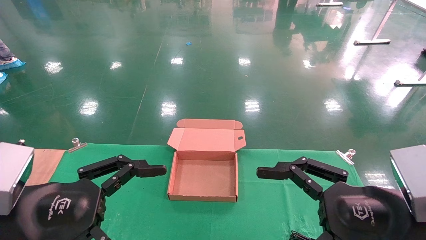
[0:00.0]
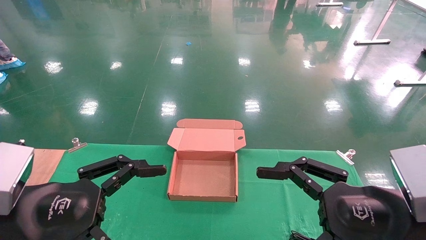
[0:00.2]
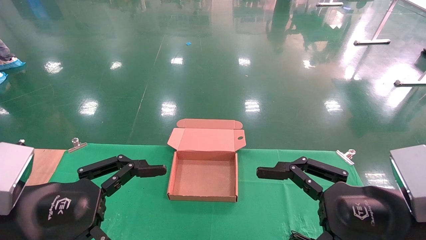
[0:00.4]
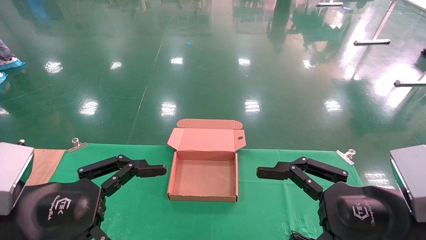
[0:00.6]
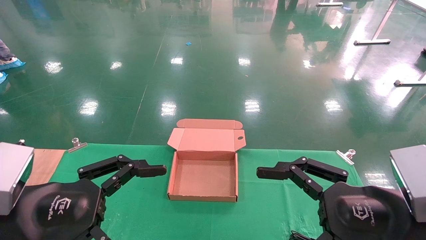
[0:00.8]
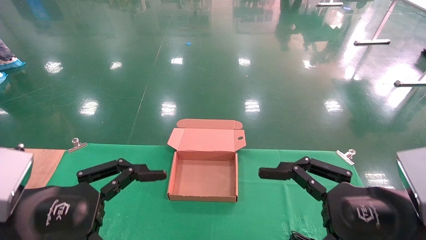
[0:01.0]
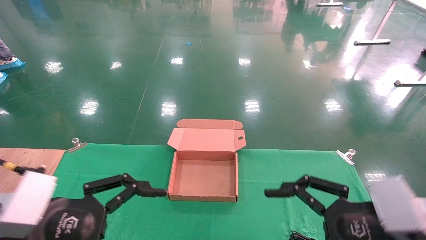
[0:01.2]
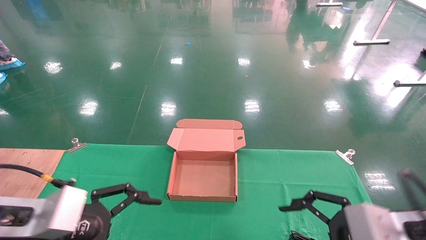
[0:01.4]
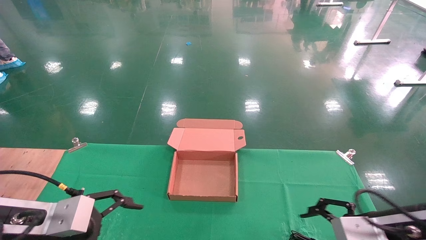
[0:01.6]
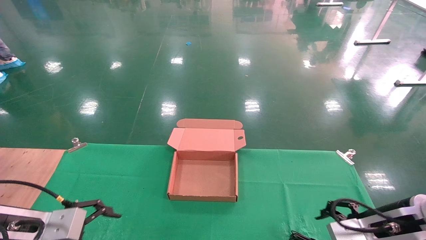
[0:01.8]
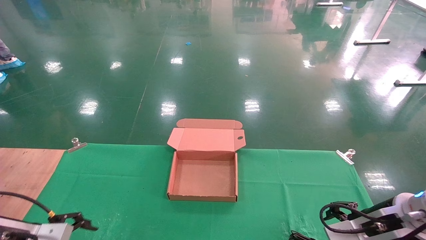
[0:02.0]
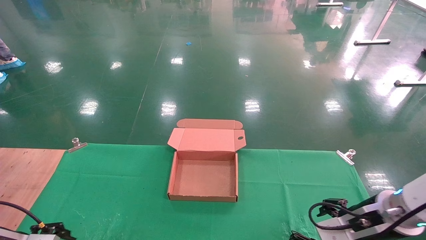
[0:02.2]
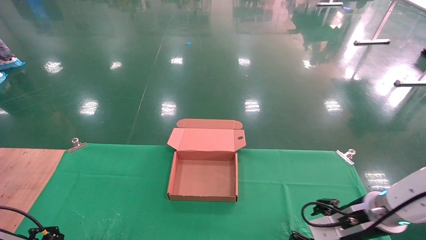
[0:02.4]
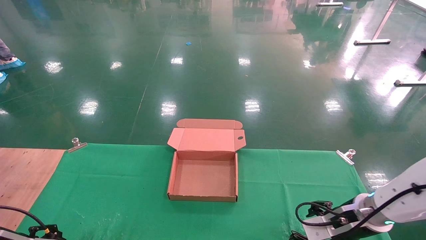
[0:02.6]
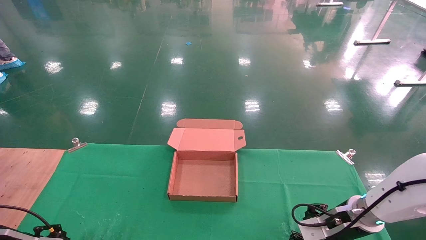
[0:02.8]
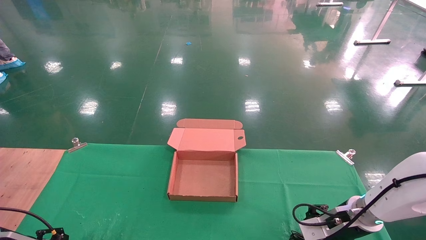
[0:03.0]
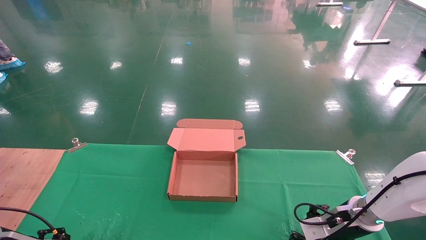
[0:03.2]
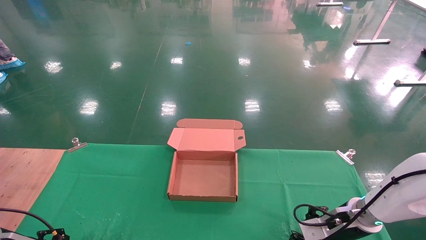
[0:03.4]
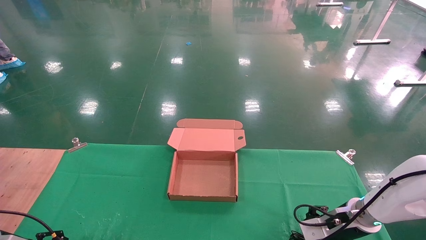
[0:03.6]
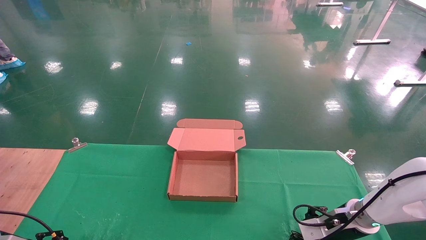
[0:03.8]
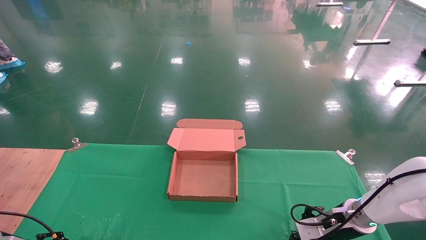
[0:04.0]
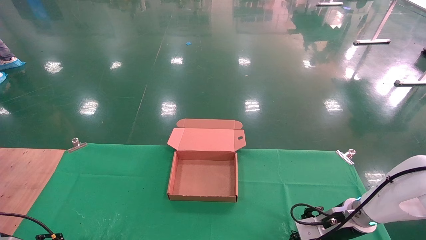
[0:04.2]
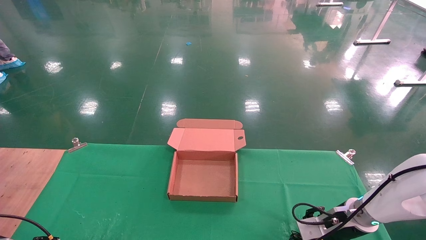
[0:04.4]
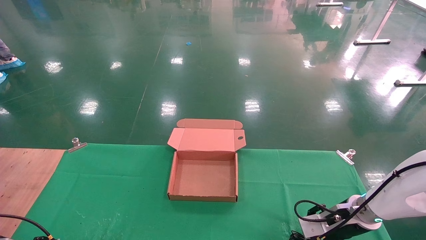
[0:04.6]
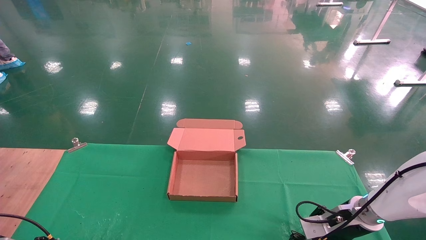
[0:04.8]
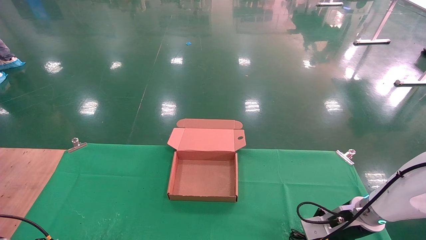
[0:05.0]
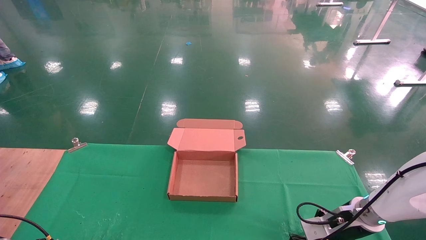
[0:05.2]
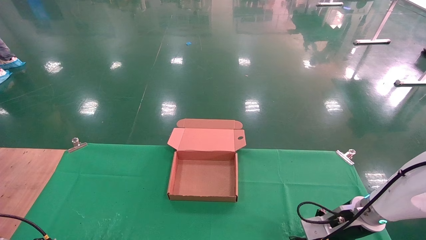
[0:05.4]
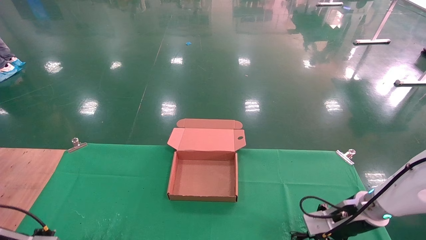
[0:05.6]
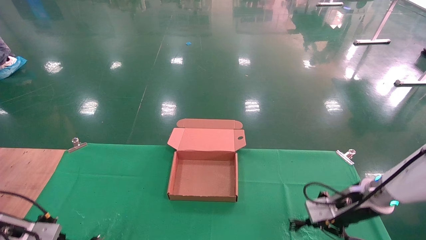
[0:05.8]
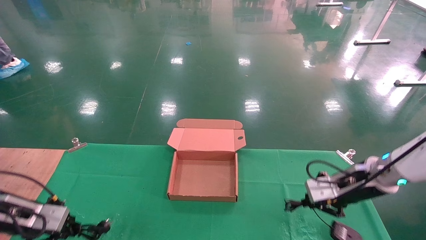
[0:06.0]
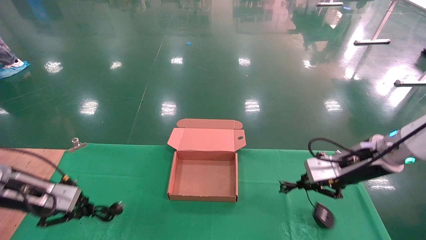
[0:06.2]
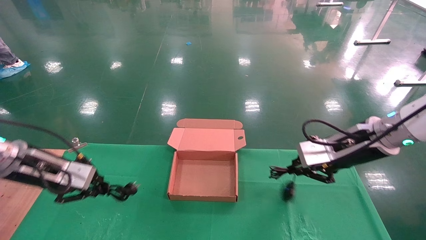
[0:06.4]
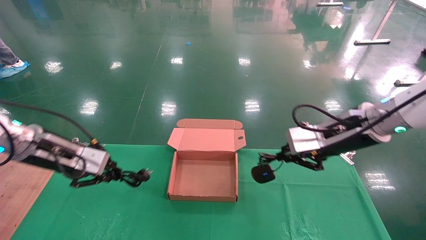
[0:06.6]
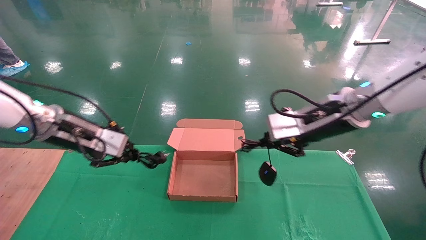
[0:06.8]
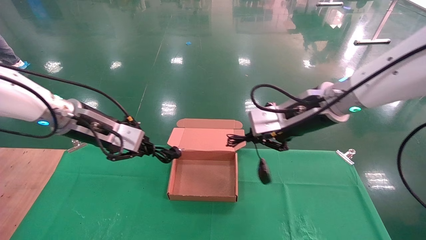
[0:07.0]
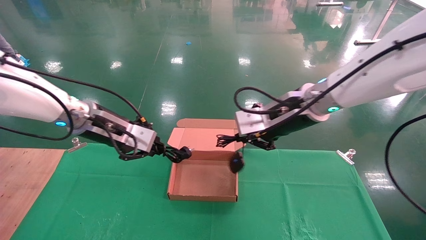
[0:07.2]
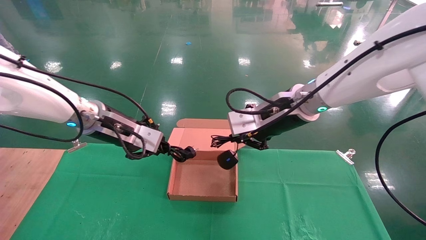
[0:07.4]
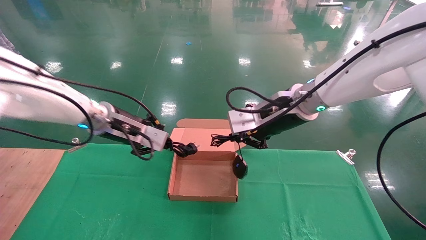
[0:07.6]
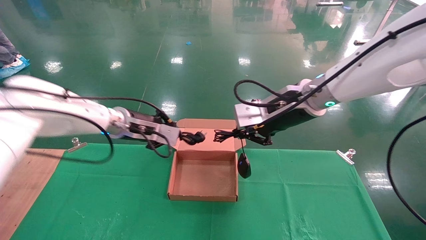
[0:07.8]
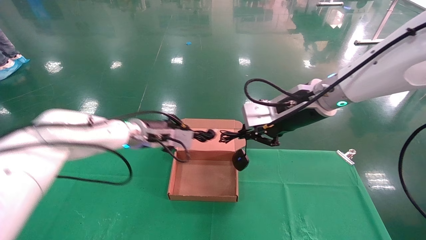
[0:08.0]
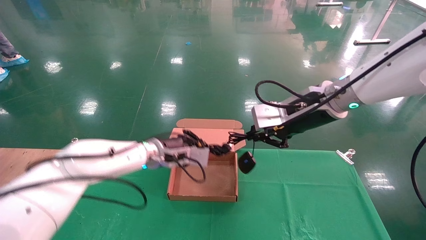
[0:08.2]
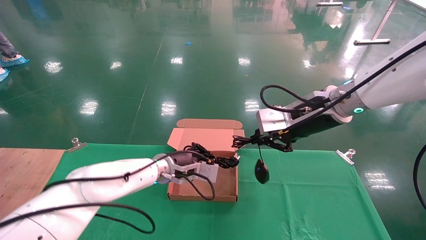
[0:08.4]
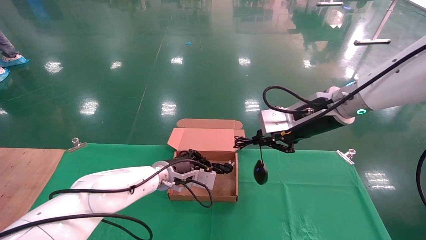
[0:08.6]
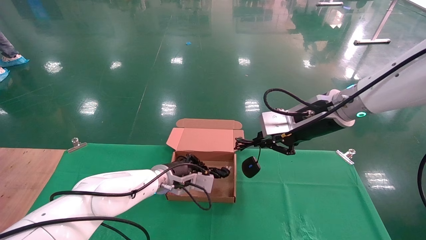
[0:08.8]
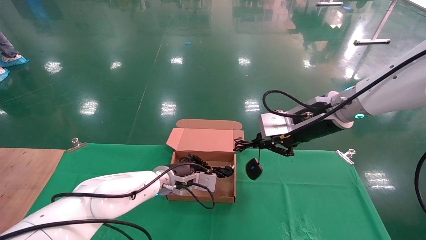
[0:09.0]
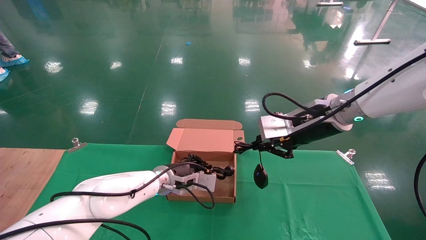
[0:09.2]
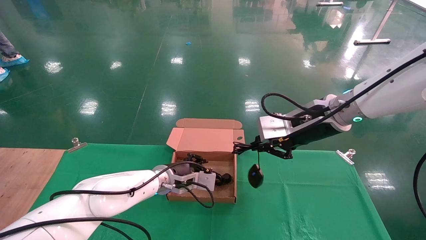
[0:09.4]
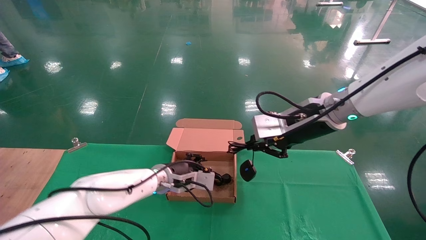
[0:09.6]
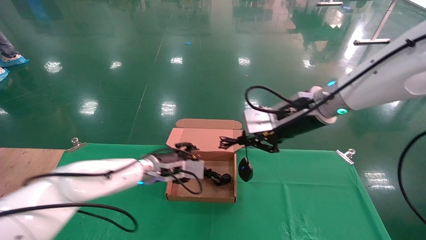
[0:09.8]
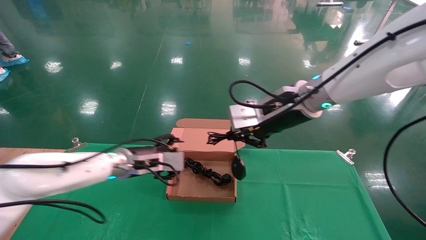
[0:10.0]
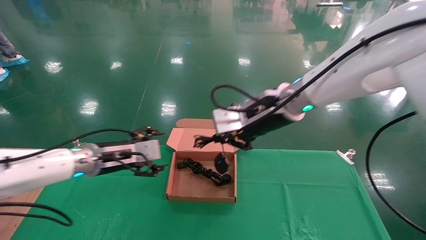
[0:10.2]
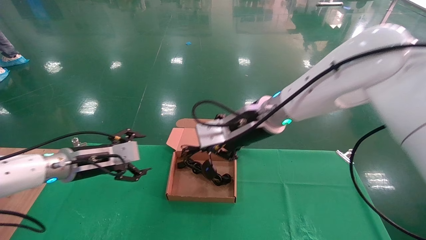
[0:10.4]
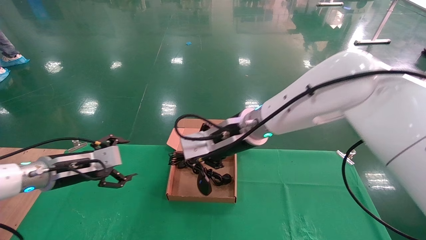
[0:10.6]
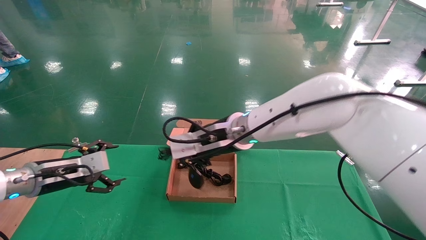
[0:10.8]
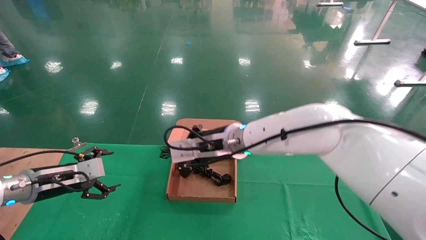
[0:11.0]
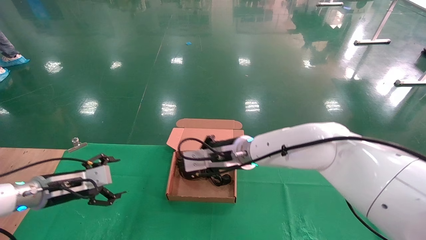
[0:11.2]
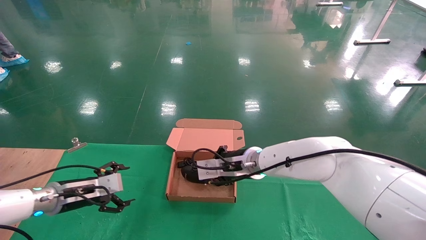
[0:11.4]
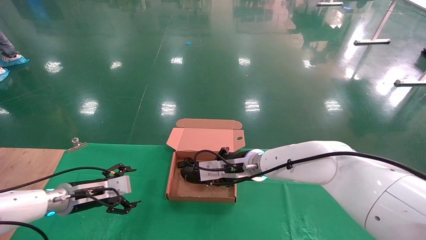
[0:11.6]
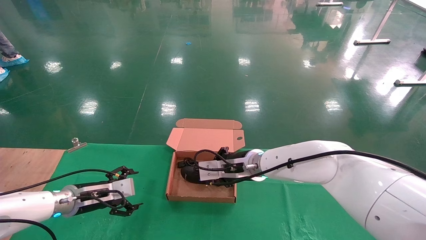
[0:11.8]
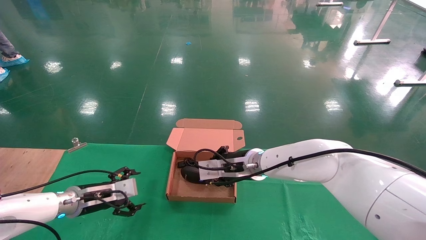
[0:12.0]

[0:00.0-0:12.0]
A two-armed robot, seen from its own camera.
Step, 0:01.8 to 0:06.2: Grab and lift both the mouse and power cord from the accessory packaging area at the same time.
Step, 0:06.4 to 0:12.0: Place the mouse and power cord into the box.
0:00.0 to 0:01.6: The grippers both shift forward and downward by approximately 10 cm.
0:01.6 to 0:03.0: The right gripper moves forward and downward, some 15 cm; the left gripper shifts some 20 cm to the left, downward and forward.
0:03.0 to 0:04.4: The grippers move only a little.
0:04.4 to 0:06.0: The grippers both shift upward by some 10 cm. The left gripper closes its fingers. Meanwhile the right gripper closes.
0:06.0 to 0:07.6: The right gripper shifts about 20 cm to the left and upward. Meanwhile the left gripper moves to the right, upward and forward, some 25 cm.
0:07.6 to 0:09.0: The right gripper goes some 5 cm to the right, while the left gripper goes some 20 cm downward and to the right.
0:09.0 to 0:10.4: Both grippers move to the left, about 15 cm. The left gripper opens.
0:10.4 to 0:12.0: The right gripper is displaced downward and forward by approximately 15 cm, while the left gripper goes about 10 cm downward.

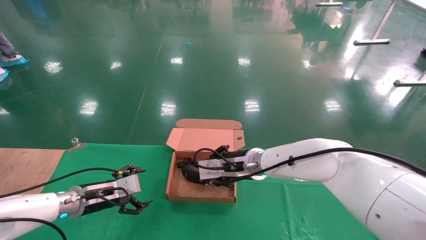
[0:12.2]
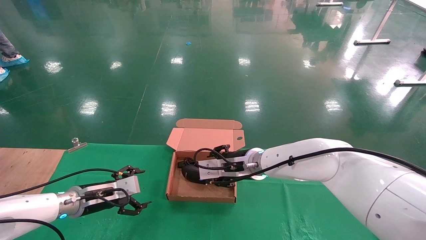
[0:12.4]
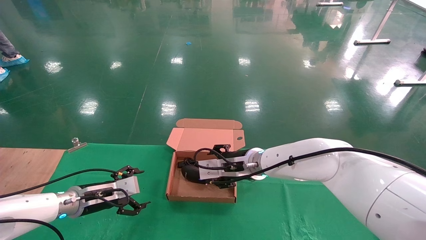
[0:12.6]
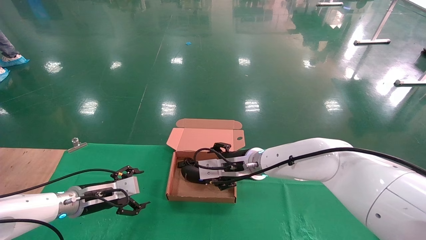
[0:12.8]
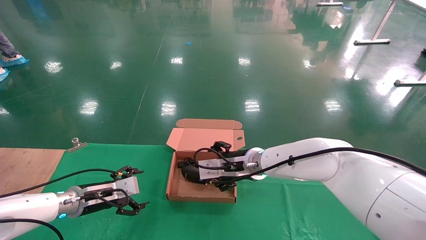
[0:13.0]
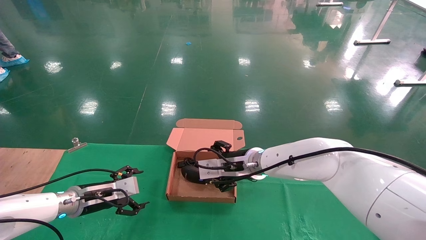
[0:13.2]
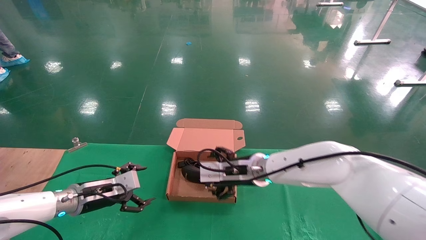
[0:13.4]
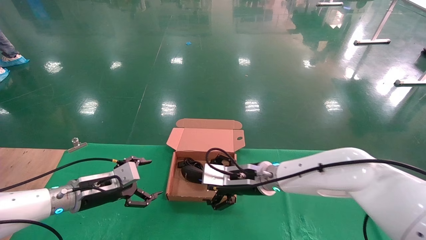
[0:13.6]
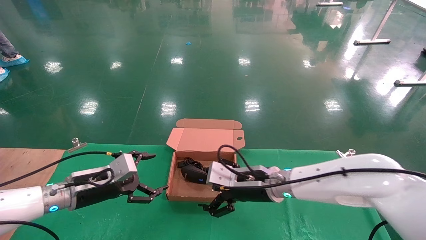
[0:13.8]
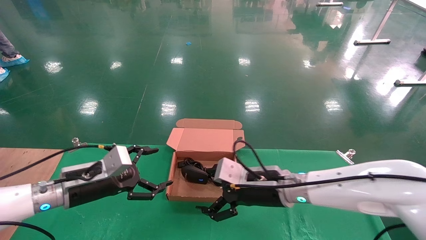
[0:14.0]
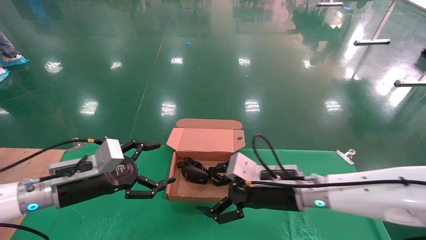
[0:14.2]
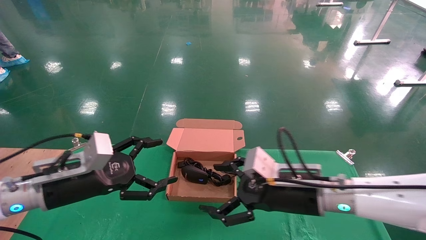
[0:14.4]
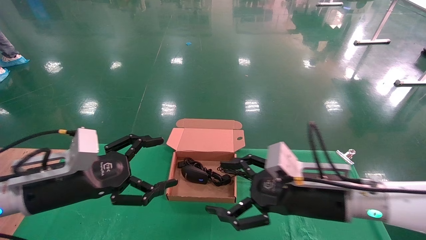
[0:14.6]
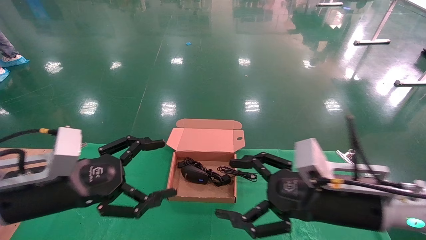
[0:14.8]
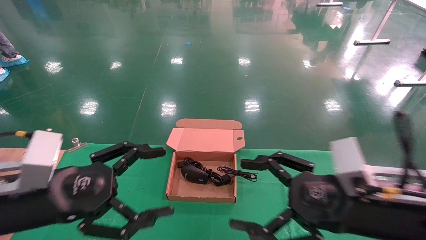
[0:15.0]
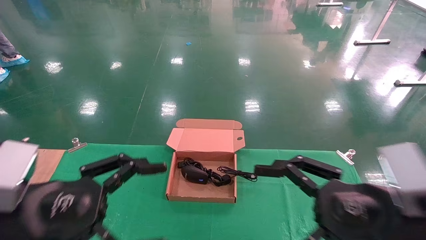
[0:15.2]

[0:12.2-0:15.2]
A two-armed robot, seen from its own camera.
0:12.2 to 0:13.8: The right gripper heads backward, covering roughly 5 cm, and opens, while the left gripper shifts about 5 cm upward.
0:13.8 to 0:15.2: The left gripper shifts approximately 20 cm backward and upward. The right gripper moves backward and to the right, roughly 25 cm.

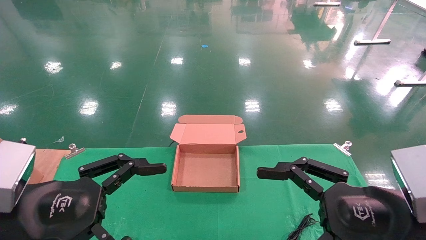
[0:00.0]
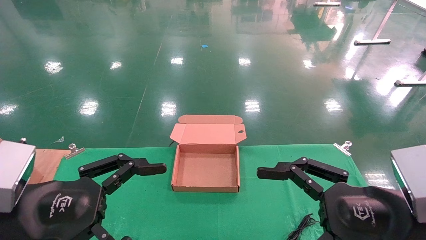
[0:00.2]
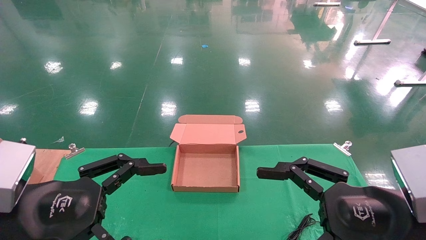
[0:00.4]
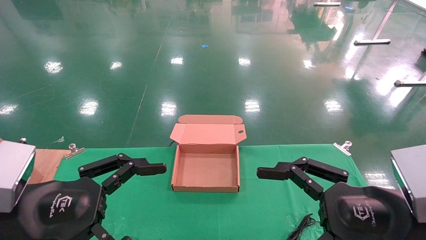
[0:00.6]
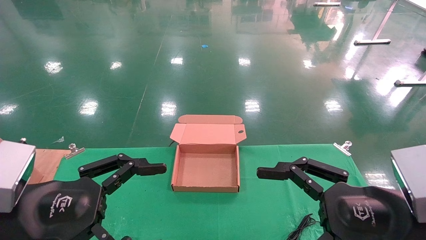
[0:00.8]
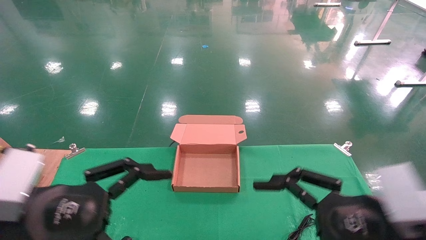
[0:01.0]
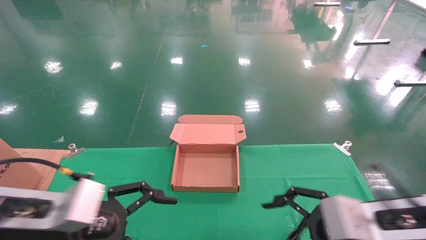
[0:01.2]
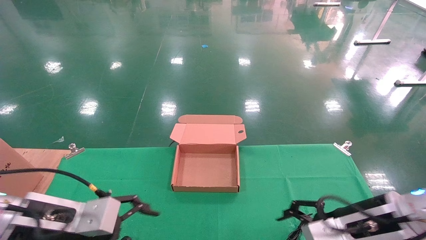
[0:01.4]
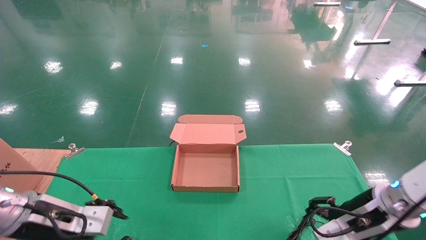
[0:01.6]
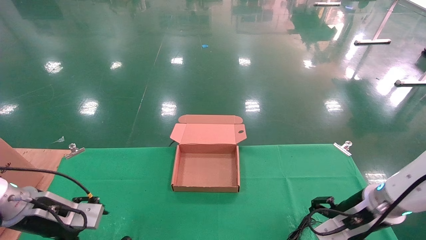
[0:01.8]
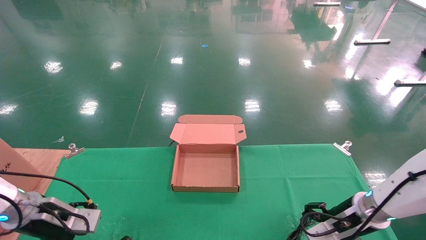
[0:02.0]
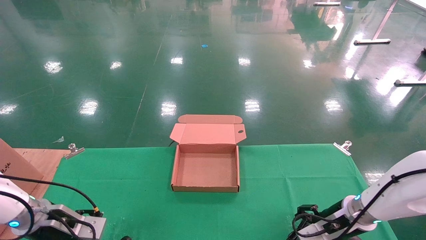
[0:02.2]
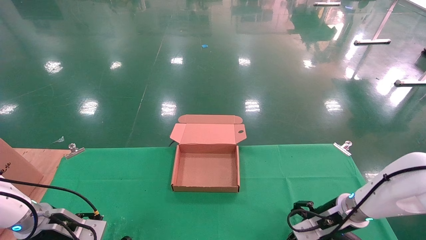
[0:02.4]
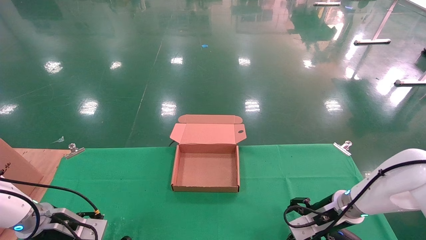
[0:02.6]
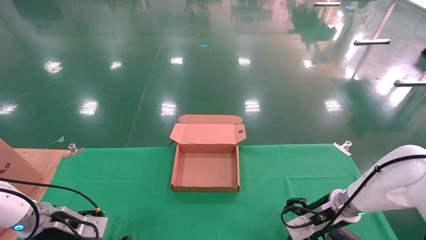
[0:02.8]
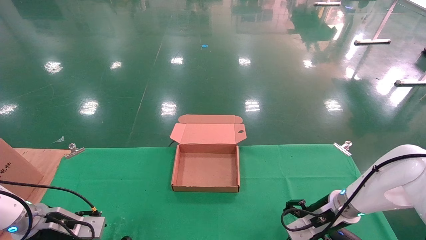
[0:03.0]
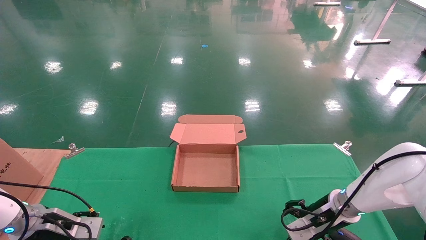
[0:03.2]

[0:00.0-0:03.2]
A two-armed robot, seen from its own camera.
0:00.0 to 0:01.6: The grippers both shift forward and downward by approximately 15 cm.
0:01.6 to 0:03.2: The right gripper moves forward and downward, roughly 10 cm; the left gripper travels downward, to the left and forward by roughly 10 cm.
